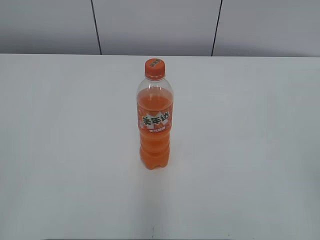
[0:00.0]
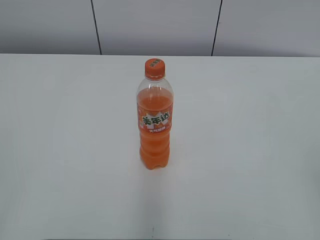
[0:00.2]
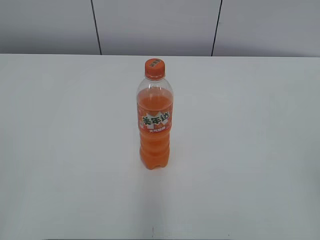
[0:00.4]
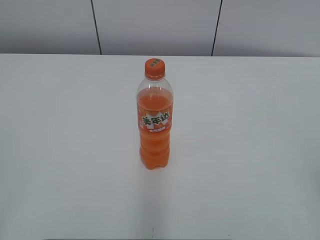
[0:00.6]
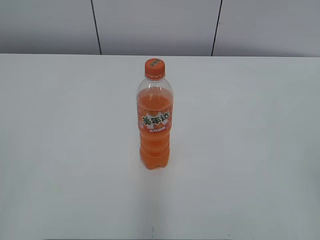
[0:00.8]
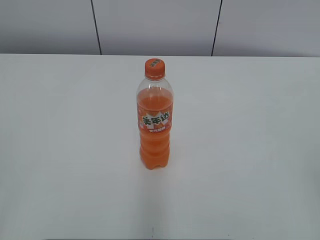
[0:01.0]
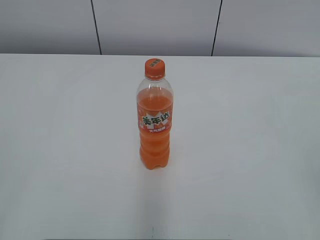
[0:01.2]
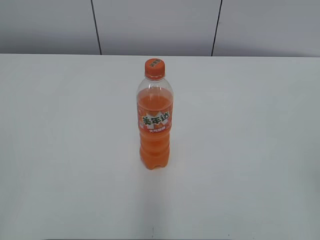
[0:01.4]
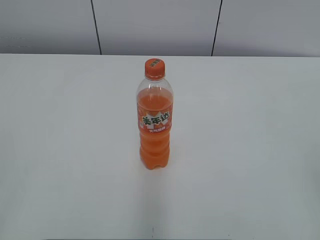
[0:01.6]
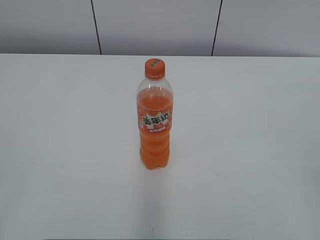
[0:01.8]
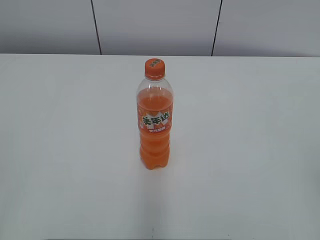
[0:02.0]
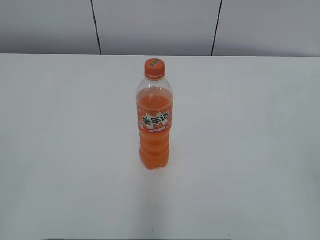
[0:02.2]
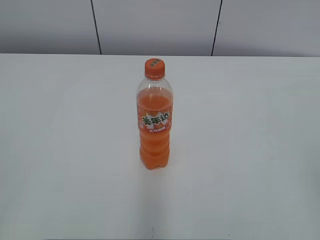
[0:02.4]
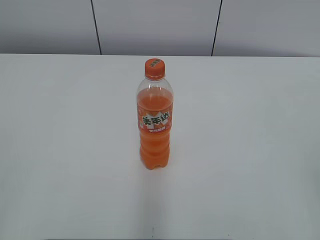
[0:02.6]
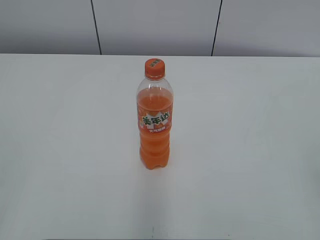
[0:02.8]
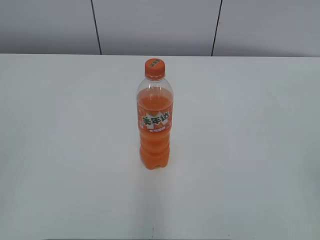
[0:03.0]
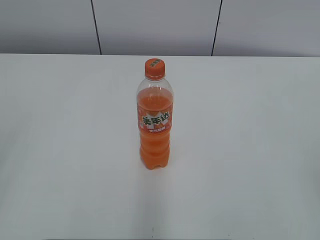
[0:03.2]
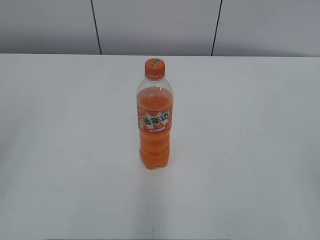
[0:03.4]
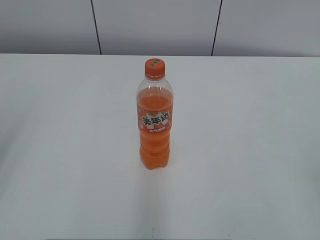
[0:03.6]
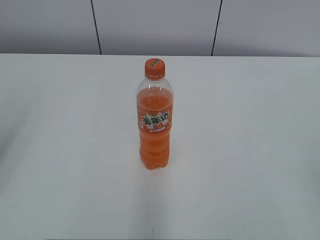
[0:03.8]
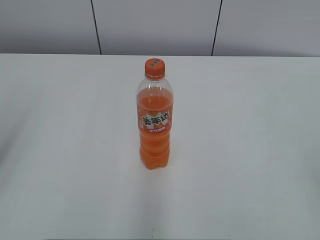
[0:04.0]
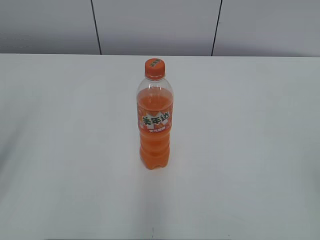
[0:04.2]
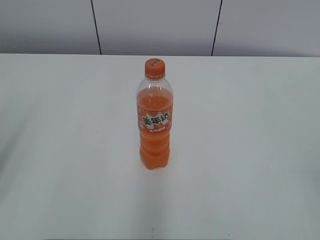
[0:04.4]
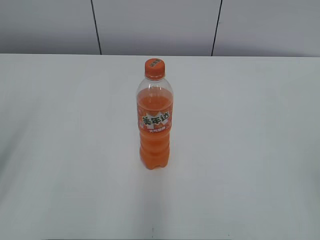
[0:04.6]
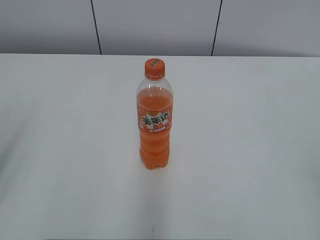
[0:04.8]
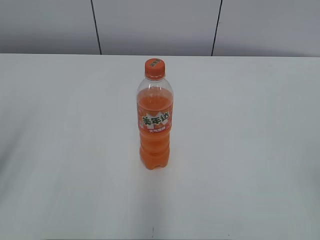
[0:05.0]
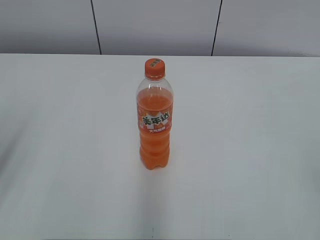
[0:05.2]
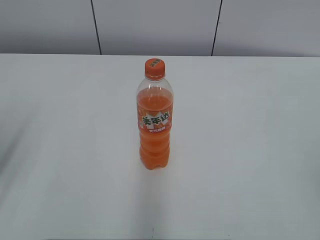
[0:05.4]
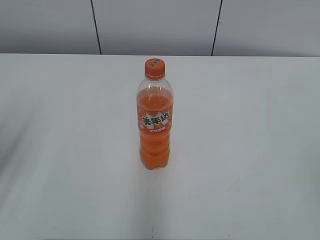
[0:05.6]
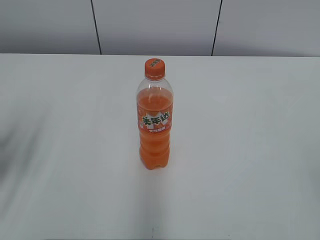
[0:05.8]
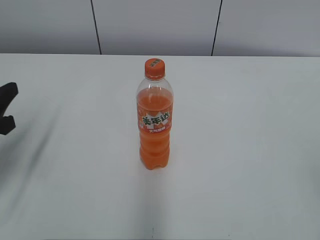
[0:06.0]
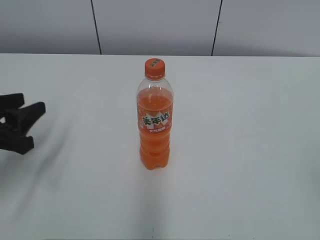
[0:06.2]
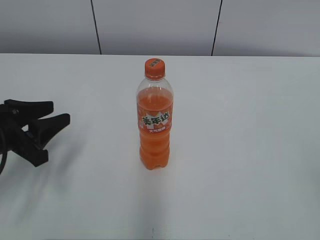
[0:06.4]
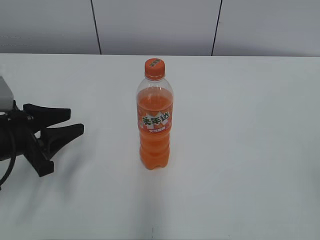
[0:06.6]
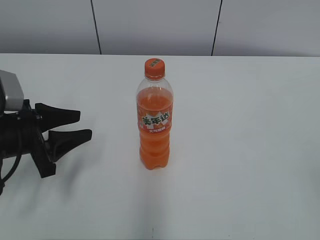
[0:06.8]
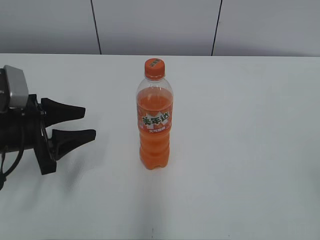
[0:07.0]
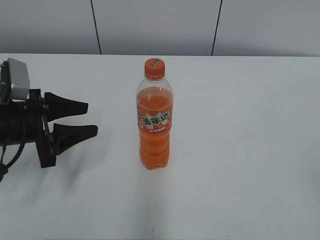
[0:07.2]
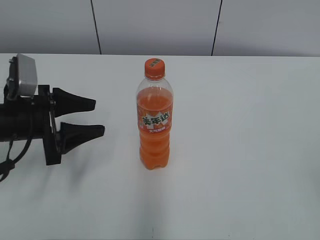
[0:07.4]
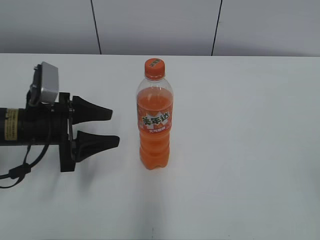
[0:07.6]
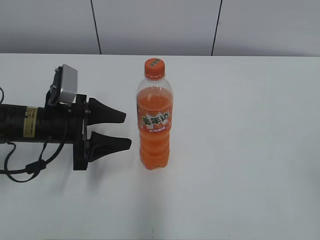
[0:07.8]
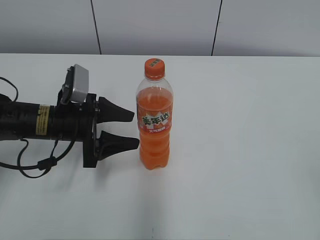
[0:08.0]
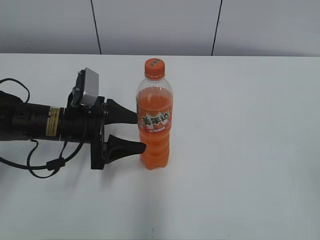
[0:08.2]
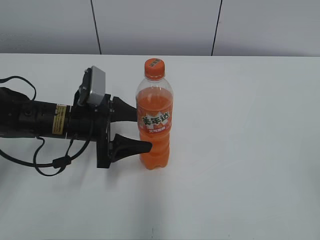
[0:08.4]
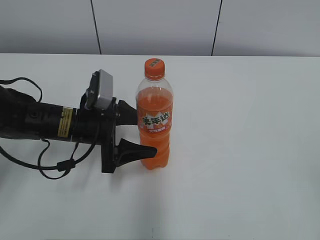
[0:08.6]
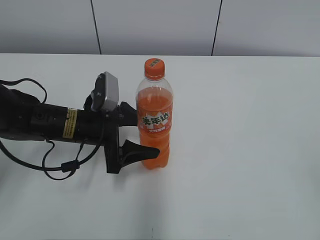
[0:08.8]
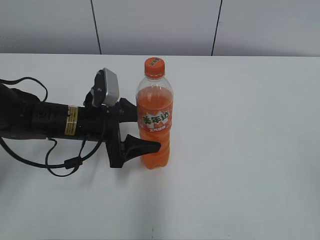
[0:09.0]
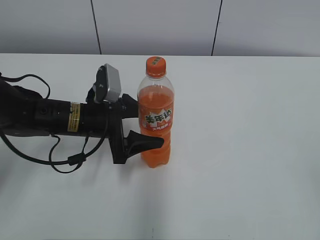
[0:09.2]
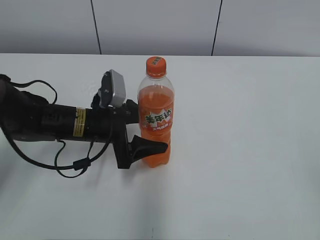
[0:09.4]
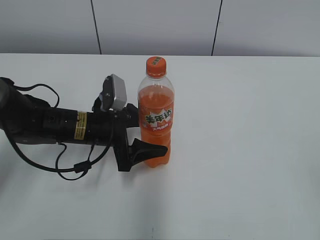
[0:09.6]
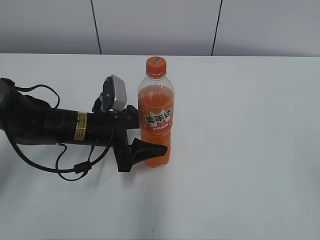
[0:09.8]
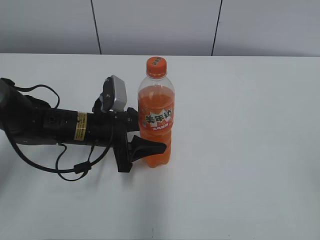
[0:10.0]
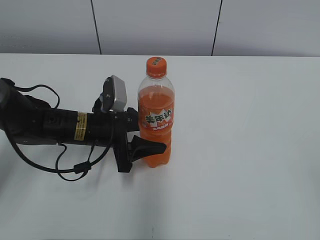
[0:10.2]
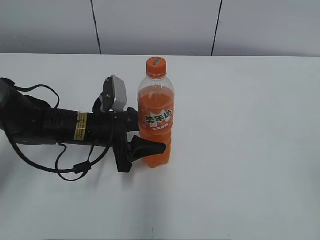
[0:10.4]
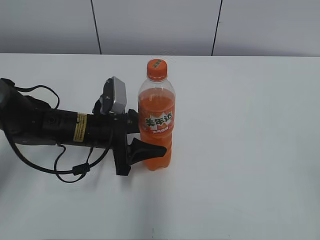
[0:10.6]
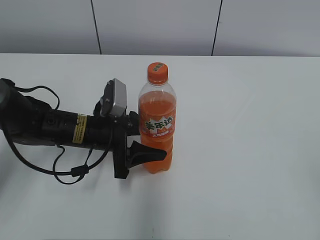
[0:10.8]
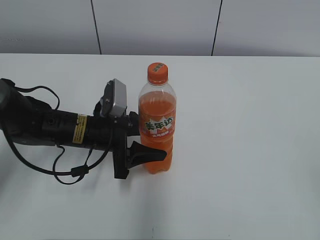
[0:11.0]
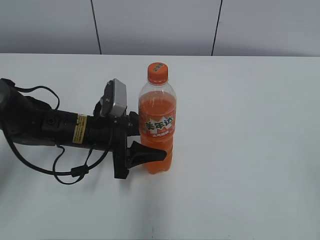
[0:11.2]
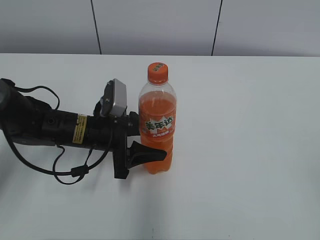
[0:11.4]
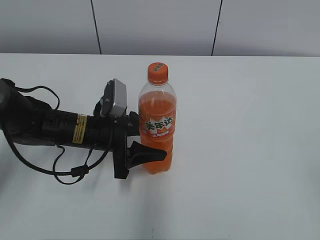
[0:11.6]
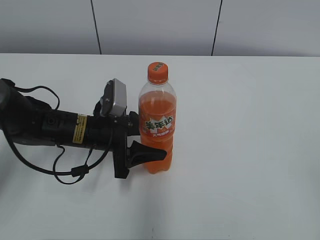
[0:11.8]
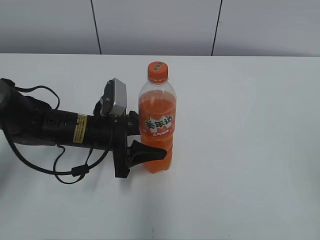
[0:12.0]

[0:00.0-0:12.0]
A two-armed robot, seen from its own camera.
Step, 0:00.0 to 0:10.0: Grab the Mirinda with the left hand.
0:04.4 to 0:06.0: The left gripper shifts about 10 cm downward and forward.
0:06.0 to 0:07.6: The left gripper moves to the right, forward and downward, roughly 10 cm, and opens up.
0:07.6 to 0:09.0: The left gripper travels to the right by approximately 5 cm.
0:09.0 to 0:10.4: The left gripper closes up.
0:10.4 to 0:12.0: The grippers move only a little.

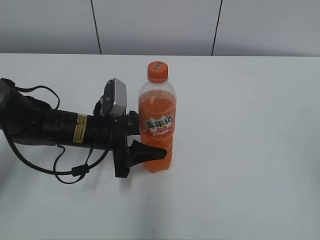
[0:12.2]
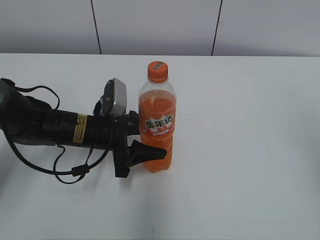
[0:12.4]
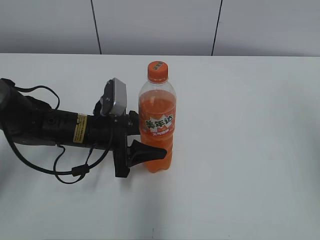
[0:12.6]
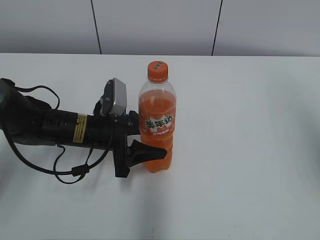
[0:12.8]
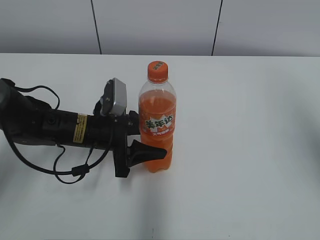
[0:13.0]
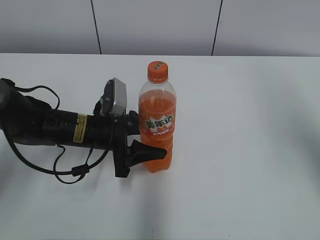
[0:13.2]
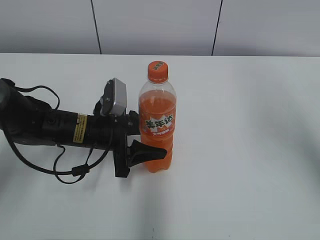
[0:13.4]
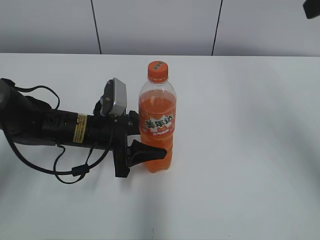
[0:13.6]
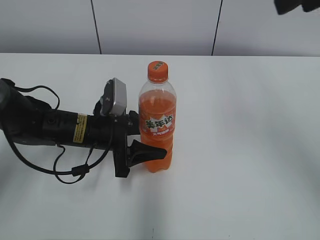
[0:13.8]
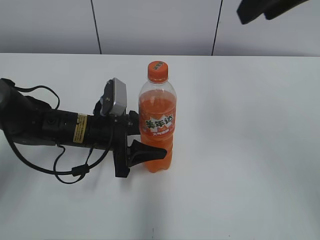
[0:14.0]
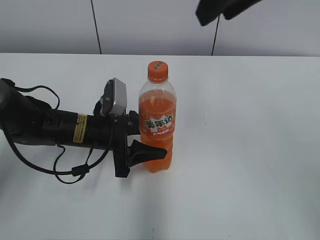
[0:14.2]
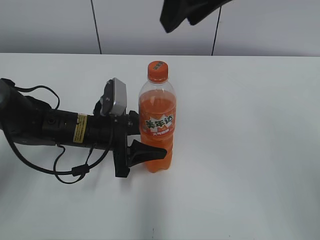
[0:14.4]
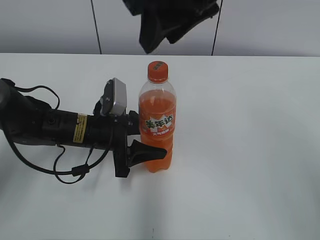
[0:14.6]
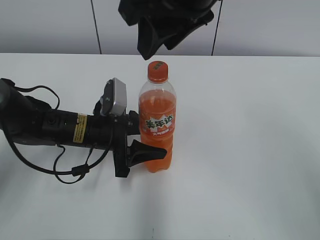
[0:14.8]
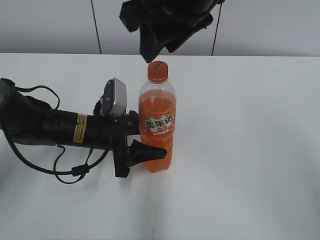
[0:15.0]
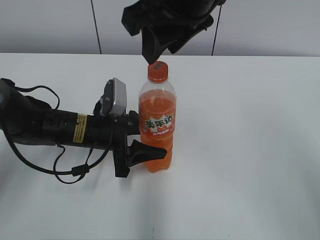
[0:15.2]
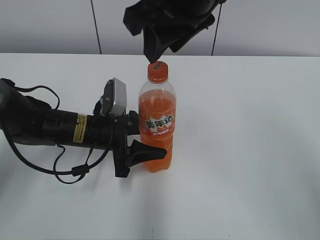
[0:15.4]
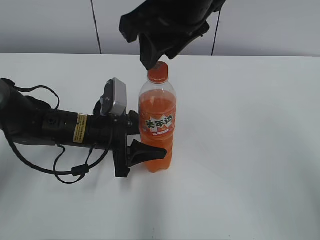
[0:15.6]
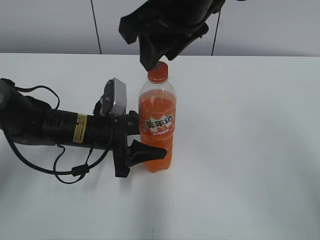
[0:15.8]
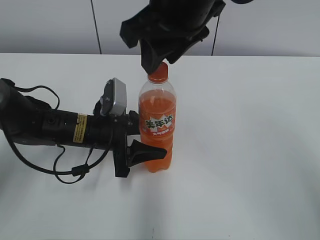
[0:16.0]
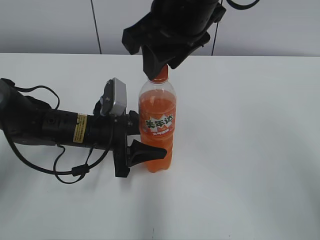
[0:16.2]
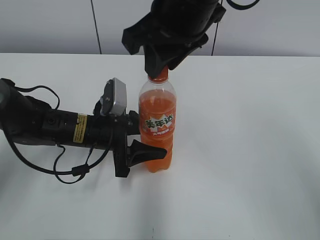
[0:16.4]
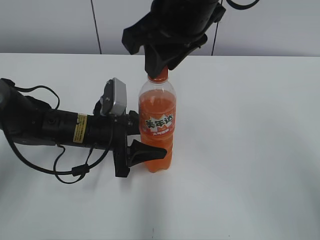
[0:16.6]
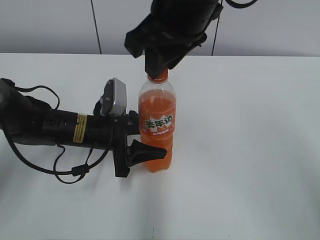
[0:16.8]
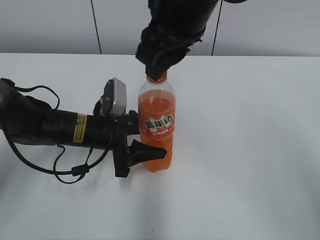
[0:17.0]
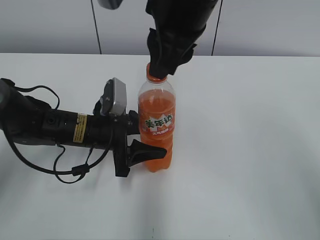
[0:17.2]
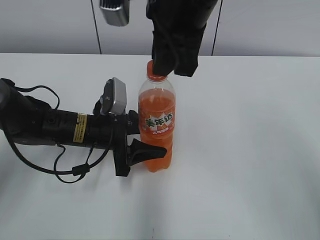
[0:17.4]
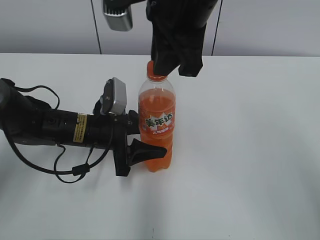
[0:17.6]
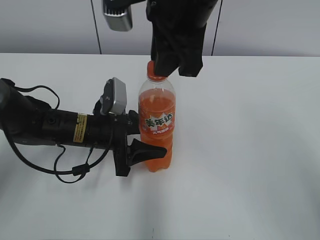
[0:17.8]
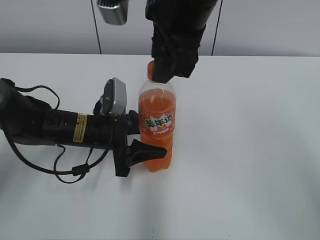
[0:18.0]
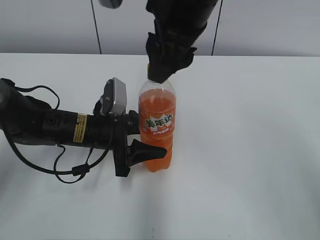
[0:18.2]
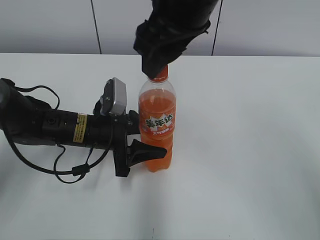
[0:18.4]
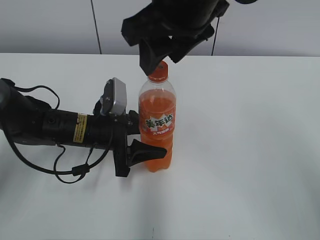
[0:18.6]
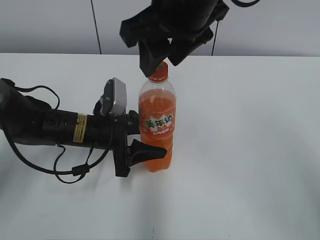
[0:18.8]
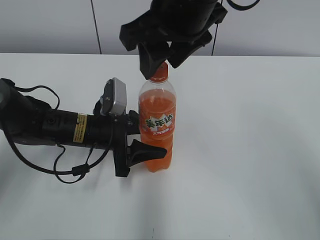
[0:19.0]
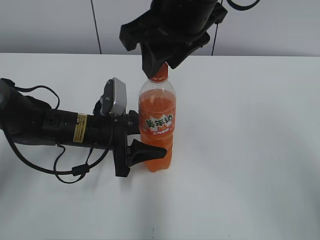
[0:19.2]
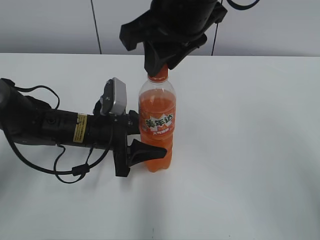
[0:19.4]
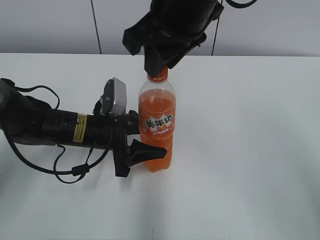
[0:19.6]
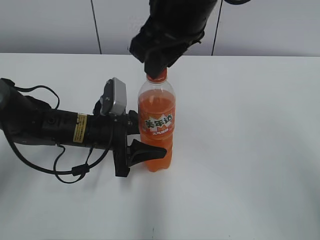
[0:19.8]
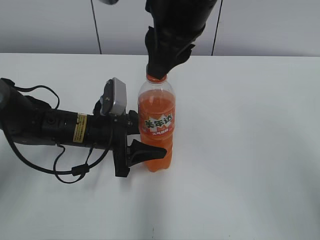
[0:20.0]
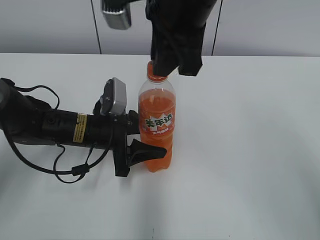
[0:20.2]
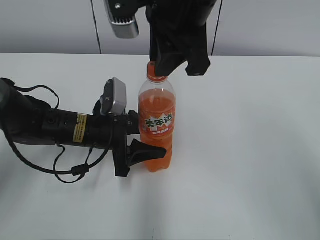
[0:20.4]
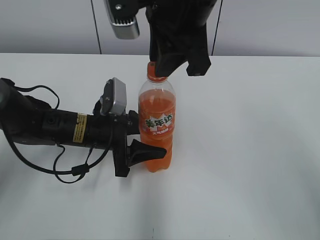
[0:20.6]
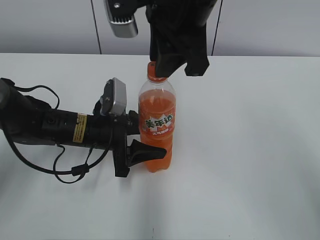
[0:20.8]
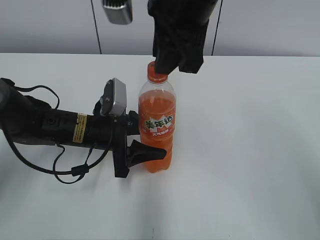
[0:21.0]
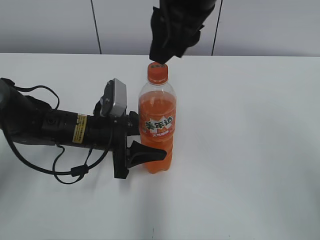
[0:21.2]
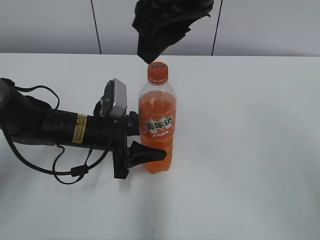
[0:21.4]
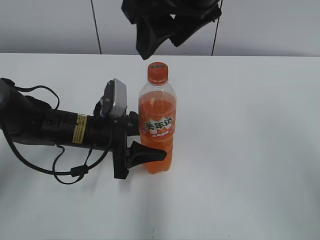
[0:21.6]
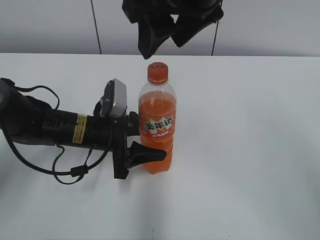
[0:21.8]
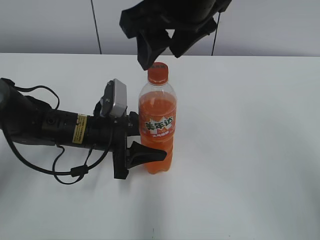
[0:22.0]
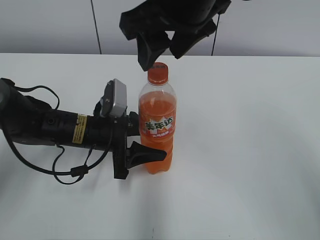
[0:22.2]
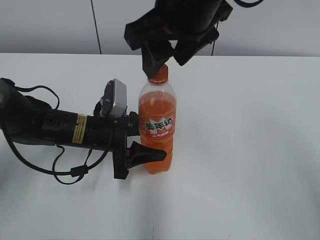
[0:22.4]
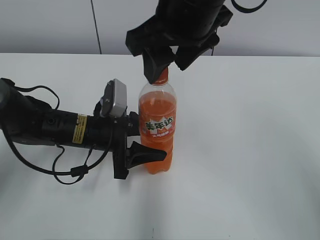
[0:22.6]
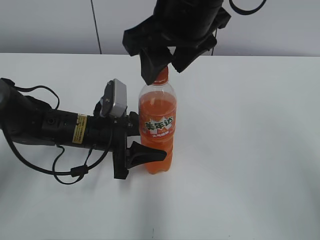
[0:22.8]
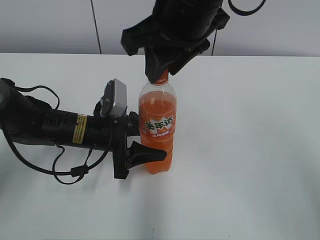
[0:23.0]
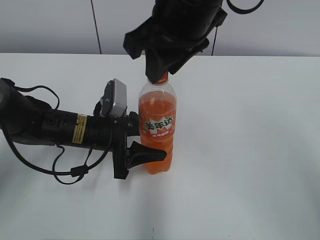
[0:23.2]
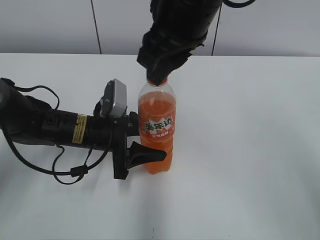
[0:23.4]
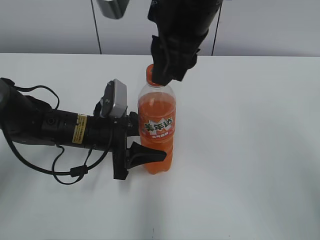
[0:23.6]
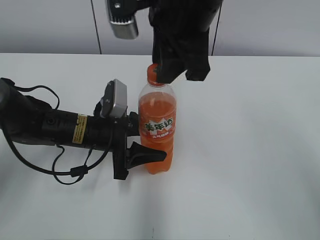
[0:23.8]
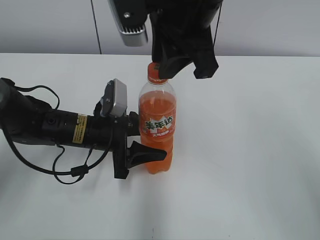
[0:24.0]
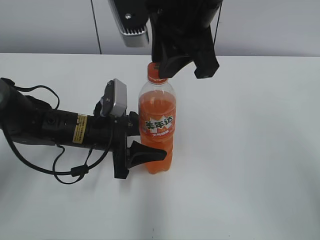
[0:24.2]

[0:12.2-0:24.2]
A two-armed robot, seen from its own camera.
0:12.2 to 0:13.8: The right gripper travels forward and to the left by about 25 cm, and closes.
0:13.8 to 0:15.2: The right gripper heads to the left, covering some 15 cm.
0:15.2 to 0:16.6: The grippers stay close to where they were, moving slightly.
0:16.6 to 0:18.2: The right gripper opens its fingers.
0:18.2 to 0:19.8: The right gripper closes up.
0:21.2 to 0:22.6: The right gripper opens.
0:22.6 to 0:24.2: The right gripper closes its fingers.
